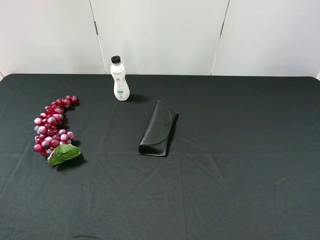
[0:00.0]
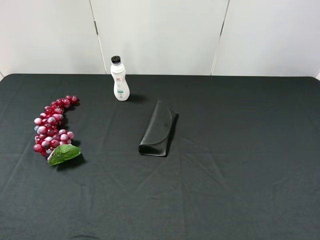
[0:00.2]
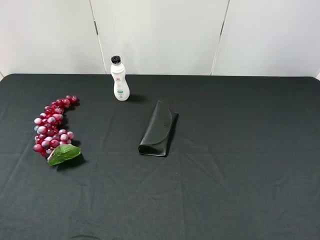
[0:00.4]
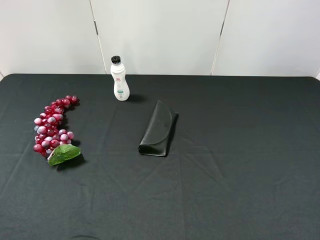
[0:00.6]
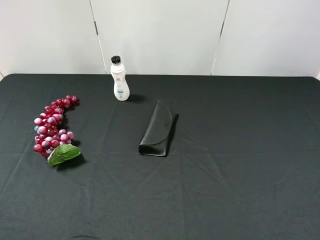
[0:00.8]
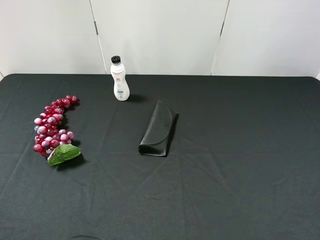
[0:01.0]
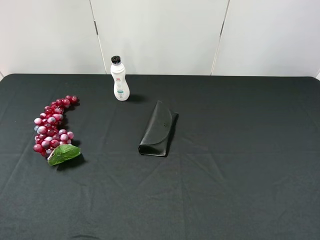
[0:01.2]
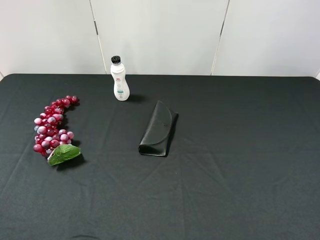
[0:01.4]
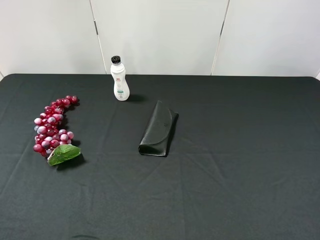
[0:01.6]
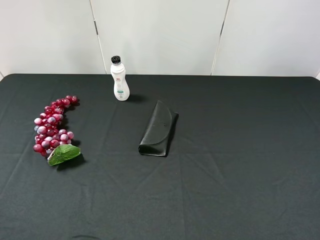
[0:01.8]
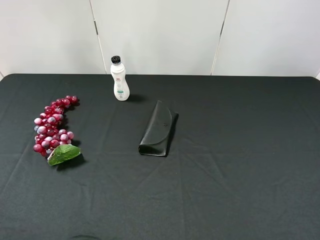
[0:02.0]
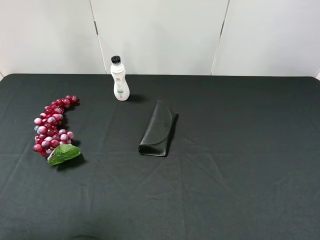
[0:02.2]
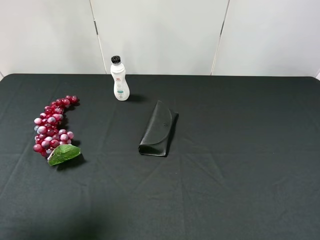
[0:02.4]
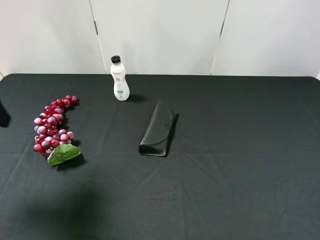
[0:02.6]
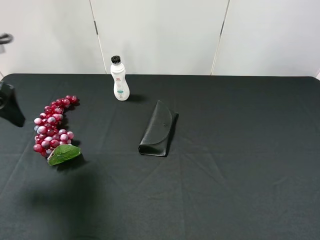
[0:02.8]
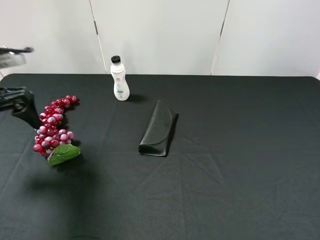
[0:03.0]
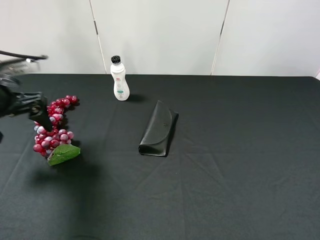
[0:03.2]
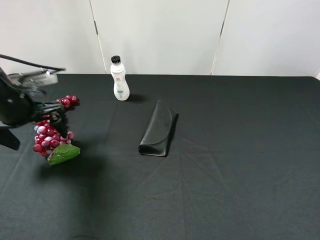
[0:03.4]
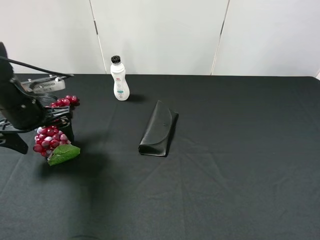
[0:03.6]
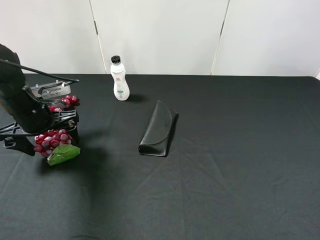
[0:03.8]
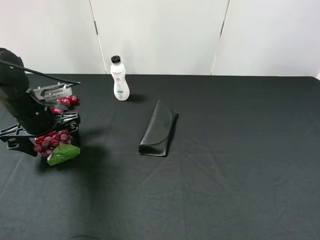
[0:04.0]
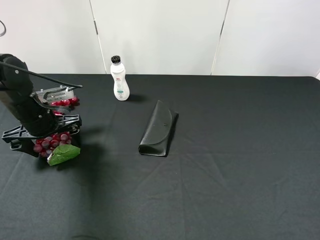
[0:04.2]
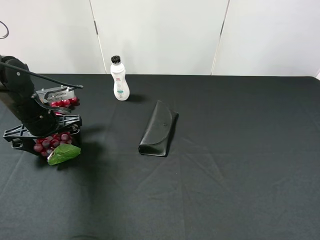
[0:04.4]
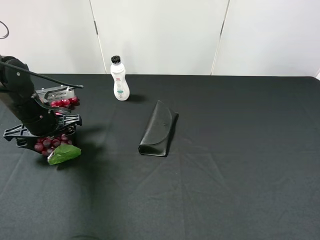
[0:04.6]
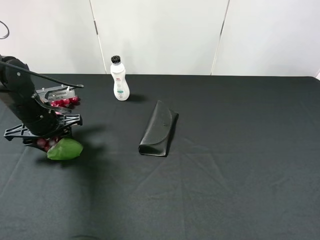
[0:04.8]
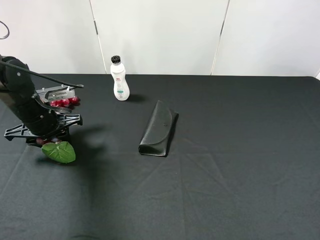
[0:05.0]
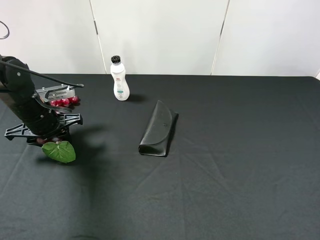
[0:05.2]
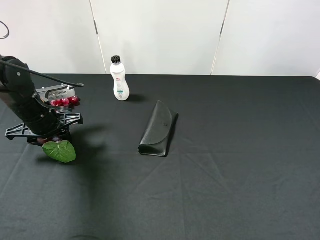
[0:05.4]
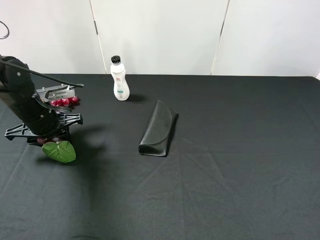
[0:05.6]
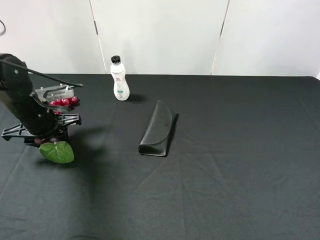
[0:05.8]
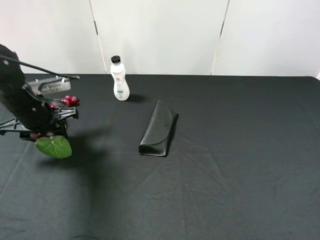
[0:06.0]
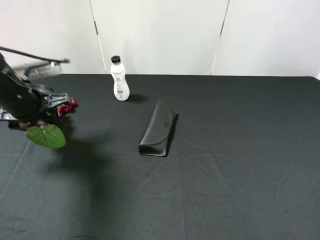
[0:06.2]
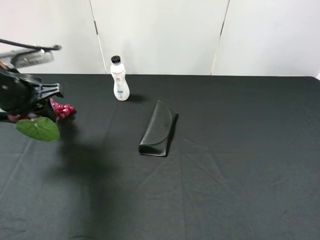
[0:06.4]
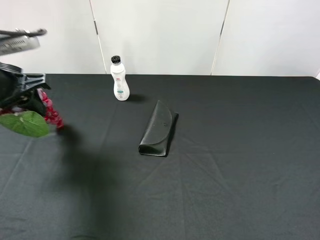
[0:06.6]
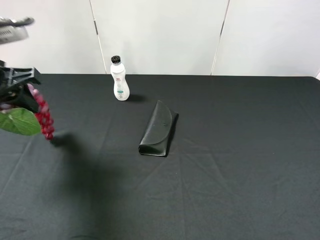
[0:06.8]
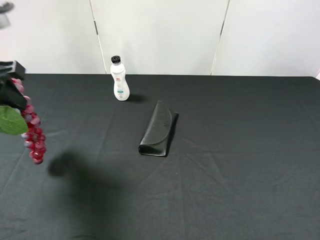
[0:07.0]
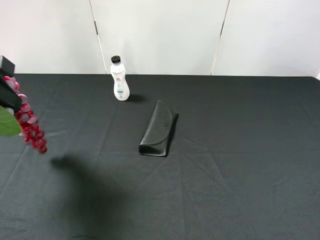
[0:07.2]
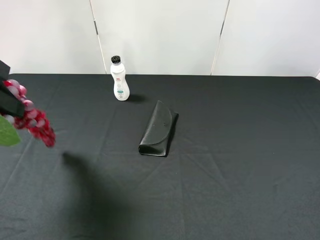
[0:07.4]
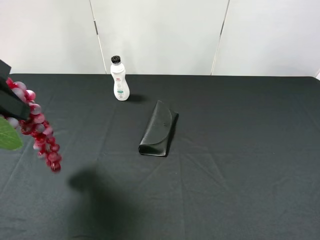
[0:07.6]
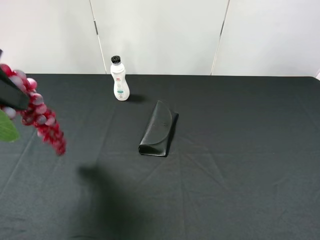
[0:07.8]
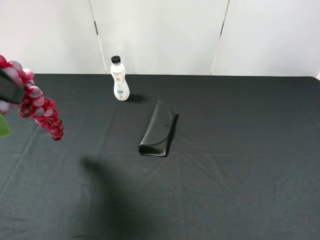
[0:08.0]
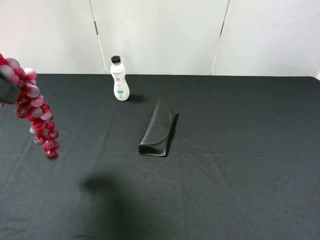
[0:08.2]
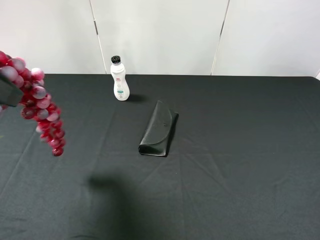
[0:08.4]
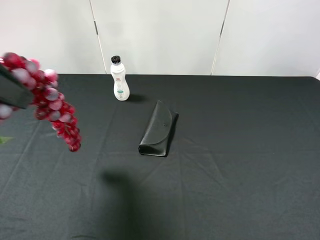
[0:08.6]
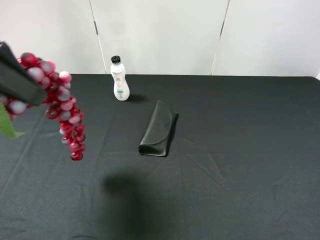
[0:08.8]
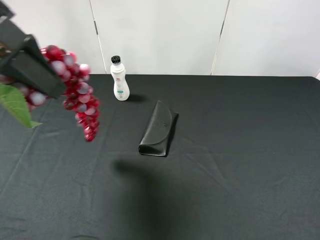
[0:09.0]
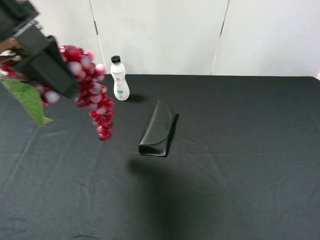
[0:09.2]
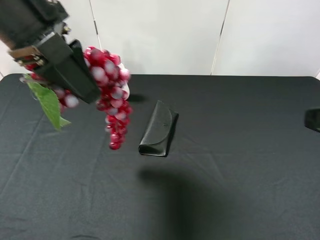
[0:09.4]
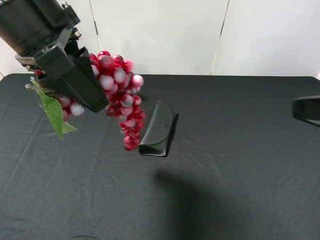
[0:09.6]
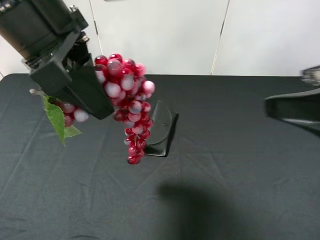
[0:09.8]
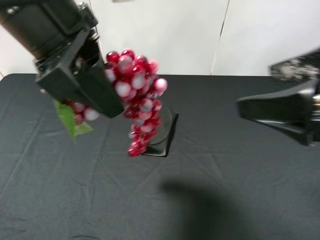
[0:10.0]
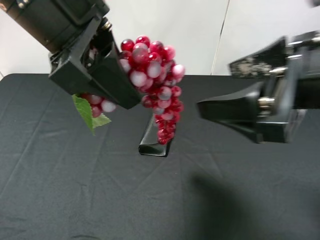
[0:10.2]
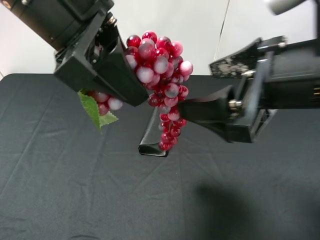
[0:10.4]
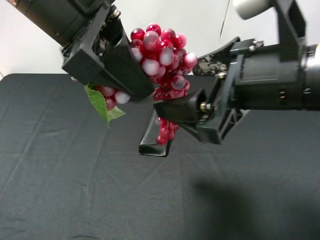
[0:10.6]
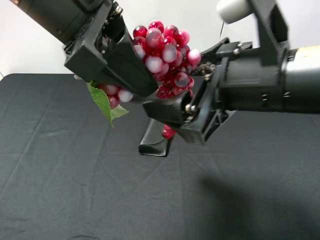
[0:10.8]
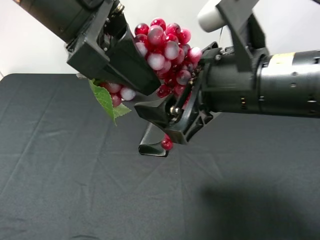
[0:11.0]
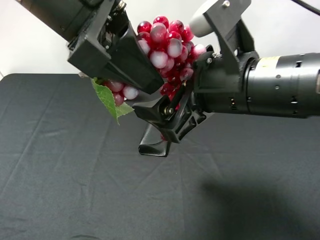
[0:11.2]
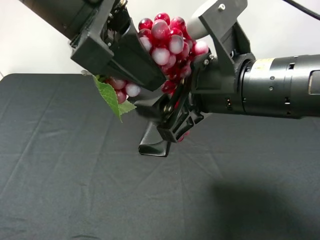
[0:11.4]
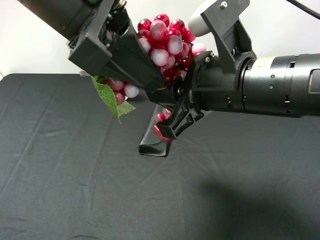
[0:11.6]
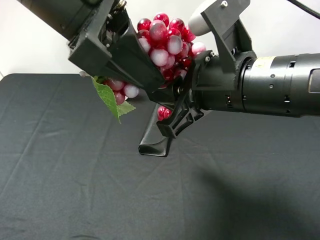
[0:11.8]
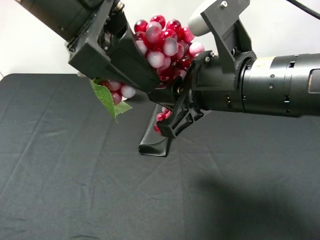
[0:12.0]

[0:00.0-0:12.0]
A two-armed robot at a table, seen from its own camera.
Task of the whole recording: use the left gripper to pick up the item and transfer it from the left gripper to the right gripper.
0:01.6 to 0:03.0: The left gripper is displaced forward by about 25 cm.
0:03.0 to 0:04.4: The left gripper goes some 10 cm downward.
0:04.4 to 0:06.0: The left gripper closes.
0:06.0 to 0:07.6: The left gripper shifts approximately 20 cm upward and backward.
0:07.6 to 0:09.0: The left gripper is displaced to the right by about 5 cm.
0:09.0 to 0:10.4: The right gripper travels to the left and forward by roughly 20 cm. Meanwhile the left gripper is displaced to the right by about 10 cm.
0:10.4 to 0:12.0: The right gripper moves approximately 5 cm, and closes.

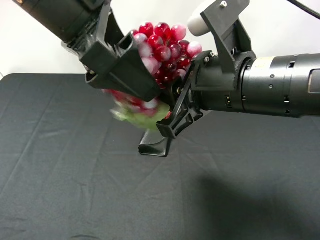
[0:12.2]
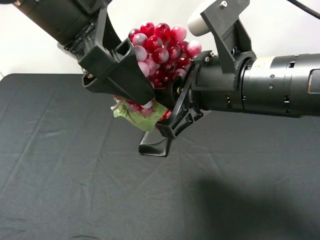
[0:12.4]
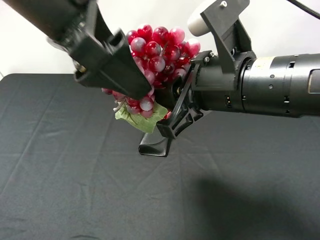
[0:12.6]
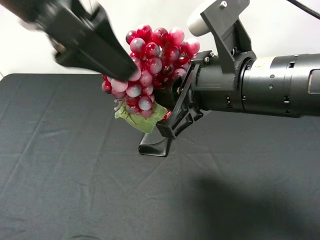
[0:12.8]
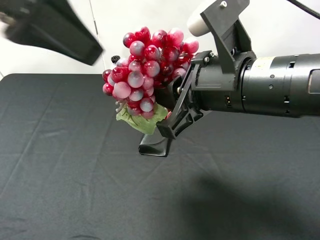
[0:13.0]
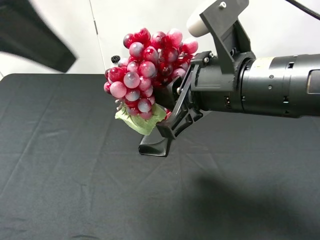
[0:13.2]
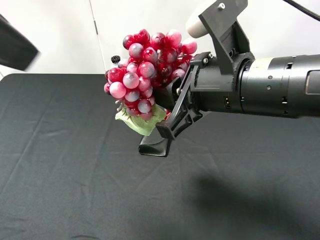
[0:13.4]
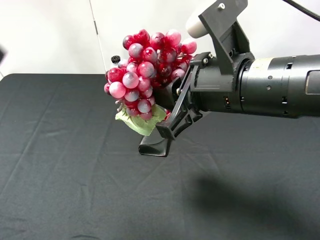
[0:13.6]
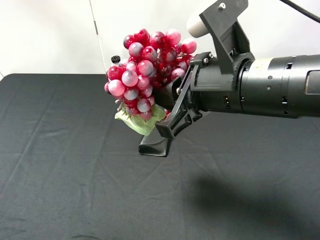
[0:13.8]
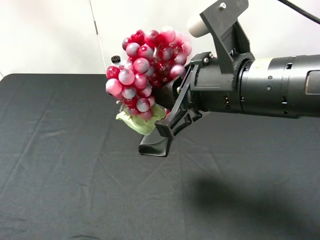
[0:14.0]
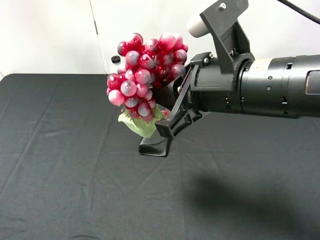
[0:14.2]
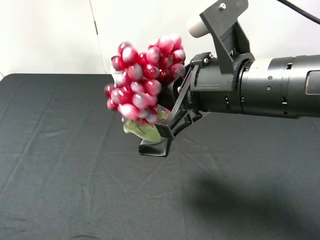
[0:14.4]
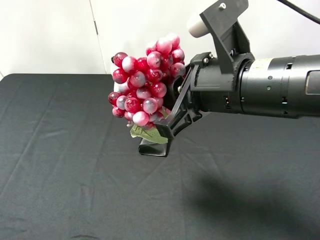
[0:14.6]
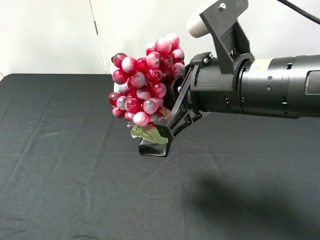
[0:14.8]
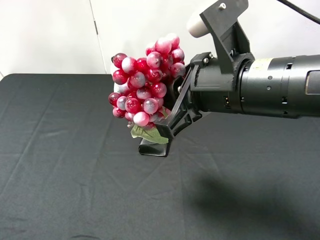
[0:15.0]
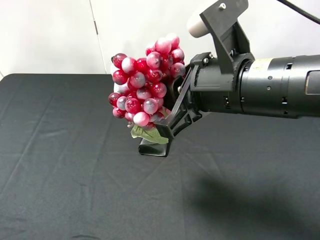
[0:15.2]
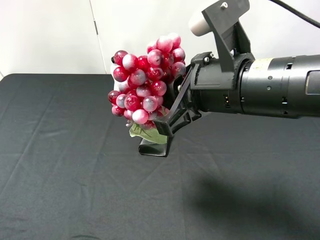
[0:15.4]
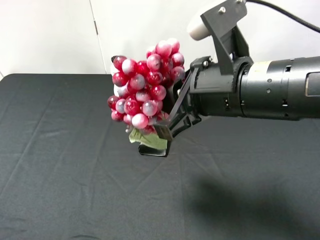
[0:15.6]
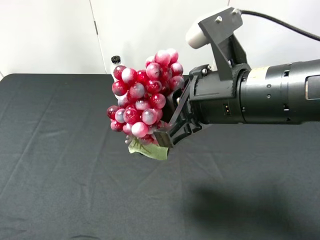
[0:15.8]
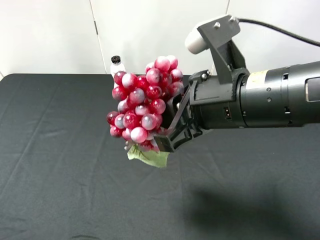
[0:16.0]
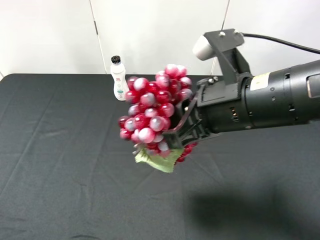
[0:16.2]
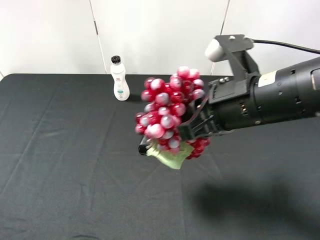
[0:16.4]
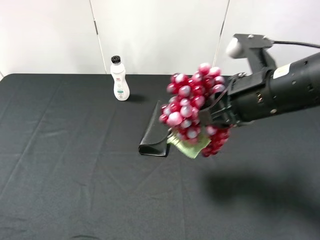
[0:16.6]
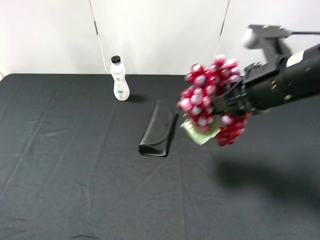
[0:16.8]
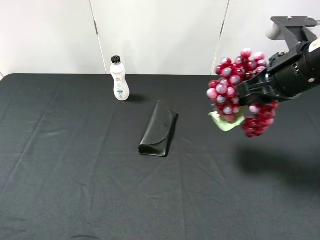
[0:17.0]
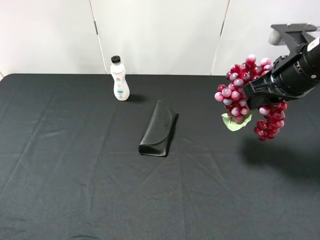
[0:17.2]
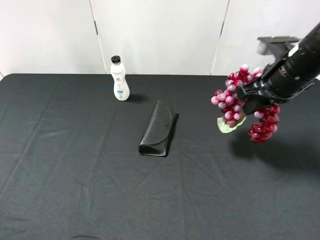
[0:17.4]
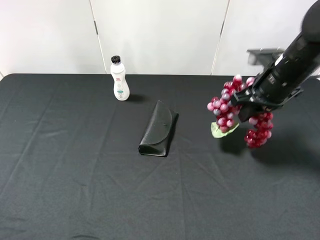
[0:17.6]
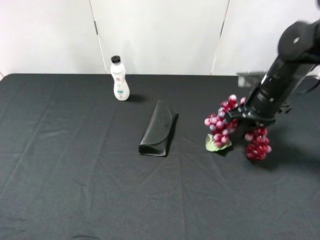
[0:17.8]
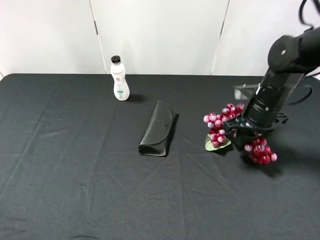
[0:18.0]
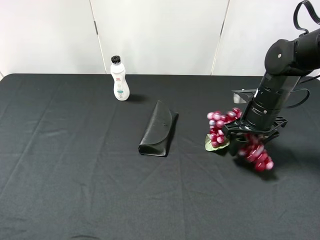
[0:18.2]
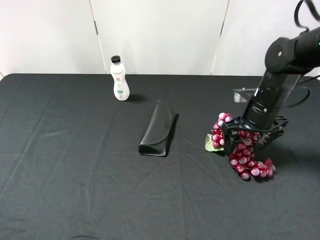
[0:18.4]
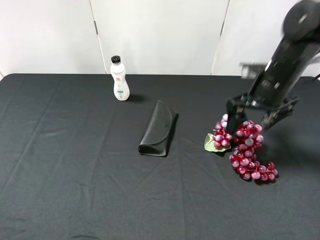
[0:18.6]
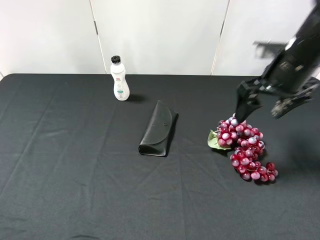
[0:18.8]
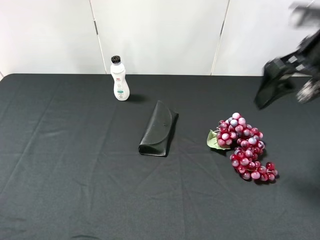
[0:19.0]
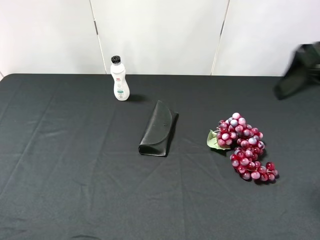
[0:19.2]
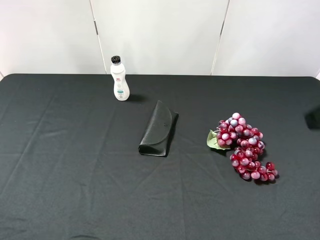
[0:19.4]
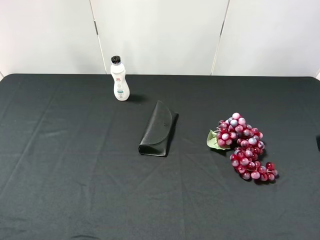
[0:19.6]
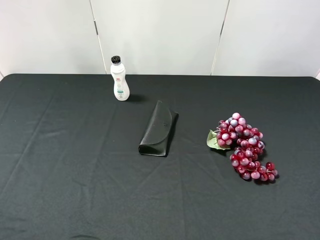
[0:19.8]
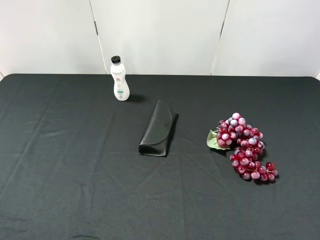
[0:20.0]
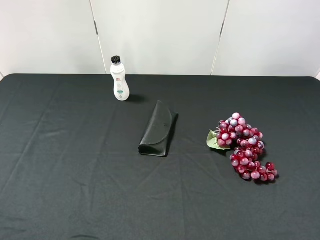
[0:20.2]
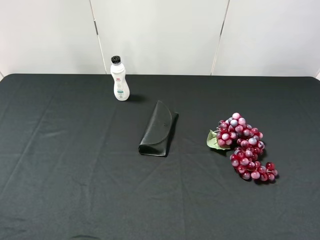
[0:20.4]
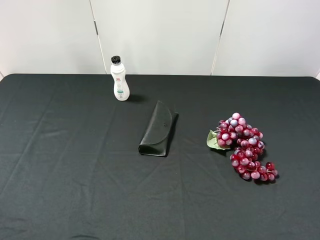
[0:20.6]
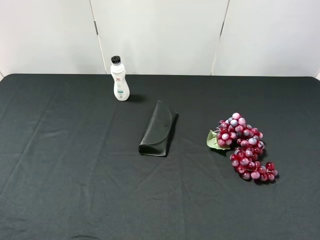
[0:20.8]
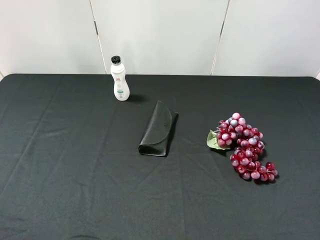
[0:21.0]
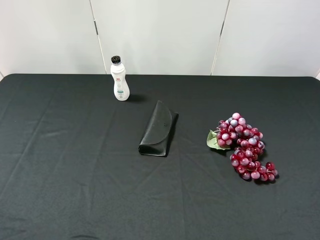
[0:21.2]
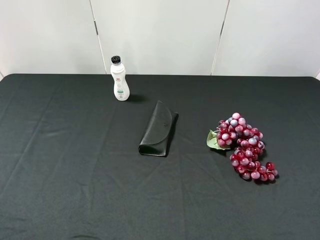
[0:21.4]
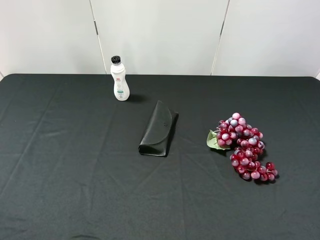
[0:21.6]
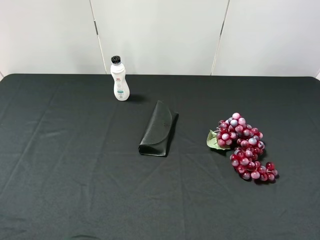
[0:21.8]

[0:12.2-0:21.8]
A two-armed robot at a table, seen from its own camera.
Task of the whole recording: use the left gripper to pick up the item and transfer it from the left gripper to the right gripper.
0:12.2 to 0:13.8: The left gripper travels to the left and backward by some 20 cm.
0:13.8 to 0:15.4: The left gripper moves downward, backward and to the left, some 15 cm.
0:15.4 to 0:17.0: The right gripper travels to the right and forward by about 15 cm.
0:17.0 to 0:18.6: The right gripper shifts approximately 10 cm forward and downward, and opens up.
0:18.6 to 0:20.2: The right gripper moves backward, about 30 cm.
